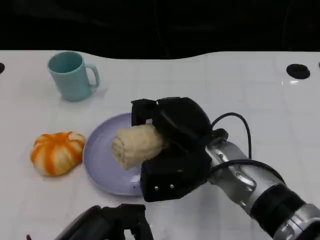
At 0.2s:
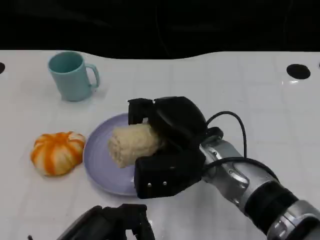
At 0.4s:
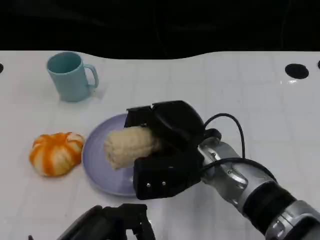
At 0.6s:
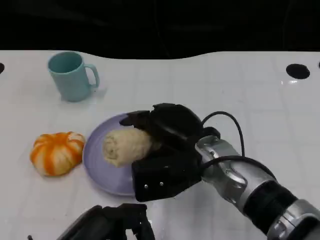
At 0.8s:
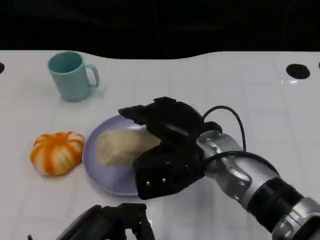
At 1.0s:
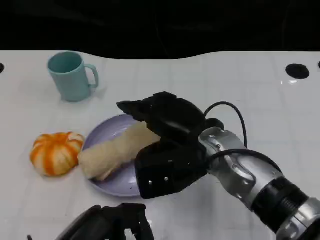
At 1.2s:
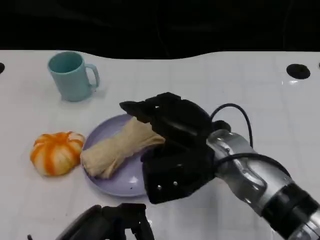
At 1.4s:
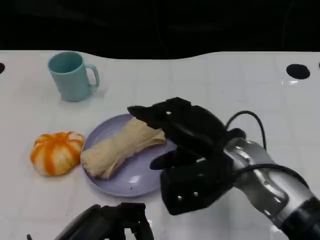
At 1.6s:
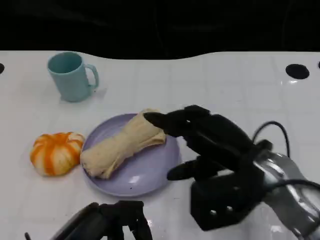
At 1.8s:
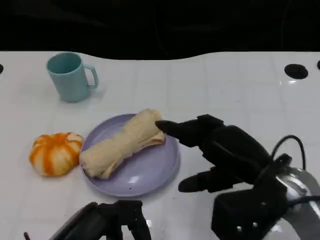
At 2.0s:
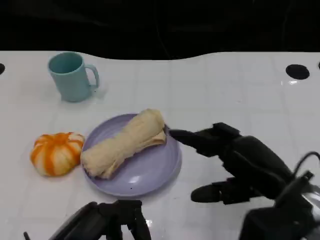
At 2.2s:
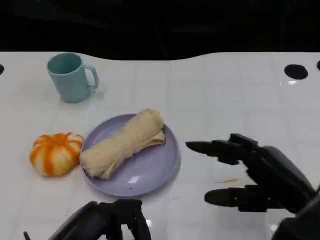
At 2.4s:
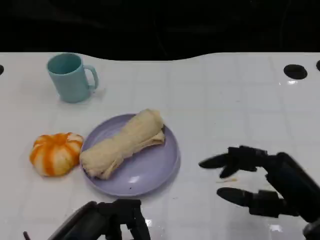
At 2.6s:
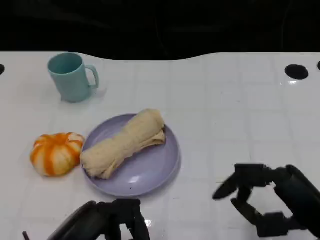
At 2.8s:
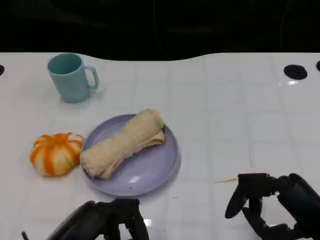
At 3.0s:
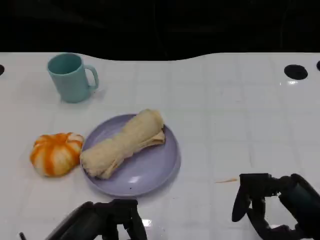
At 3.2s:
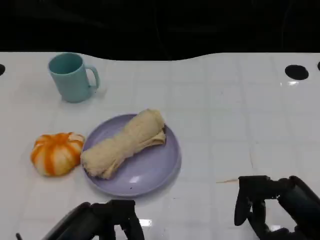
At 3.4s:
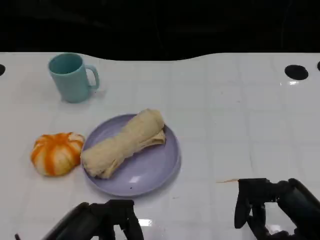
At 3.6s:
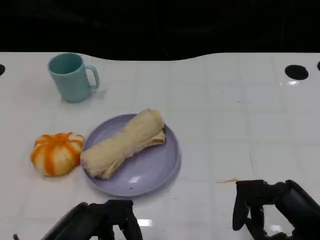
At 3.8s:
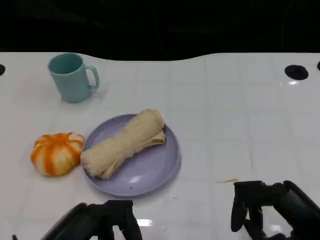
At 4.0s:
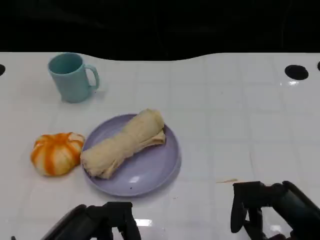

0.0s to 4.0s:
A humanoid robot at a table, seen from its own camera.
Task of the whole recording: Grasp the towel on the left side of the plate with the left hand and place it into the plate.
0.0s to 1.4s: The right hand moves about 5 cm.
1.4s to 2.6s: The right hand moves to the right and backward, about 15 cm.
2.6s to 4.0s: The hands move only a little.
